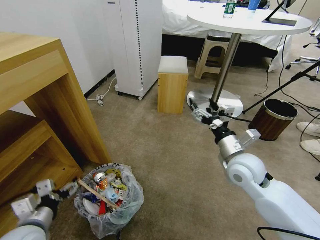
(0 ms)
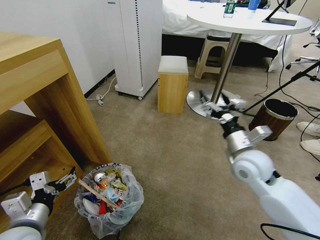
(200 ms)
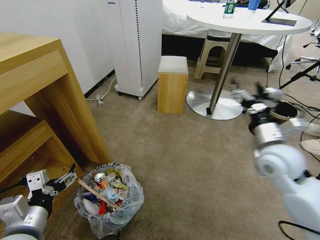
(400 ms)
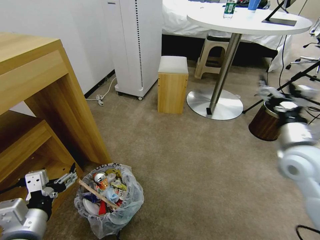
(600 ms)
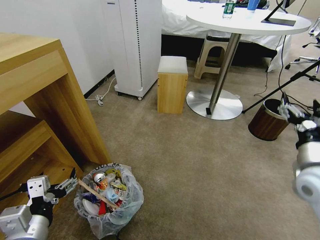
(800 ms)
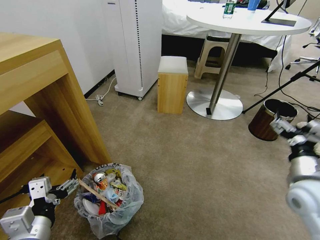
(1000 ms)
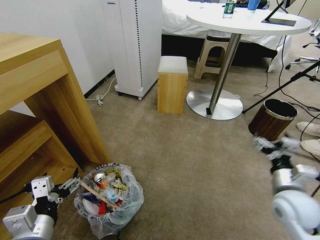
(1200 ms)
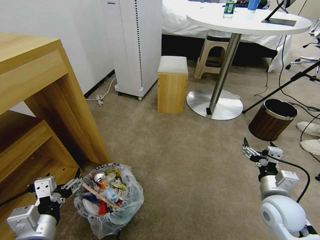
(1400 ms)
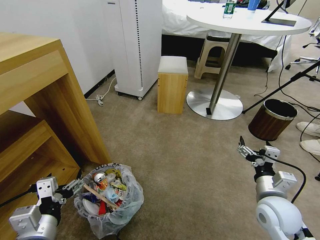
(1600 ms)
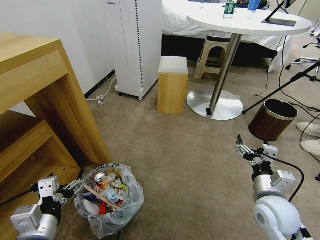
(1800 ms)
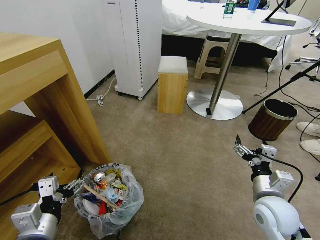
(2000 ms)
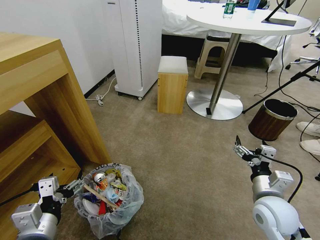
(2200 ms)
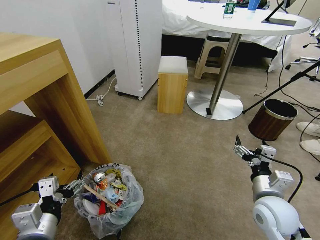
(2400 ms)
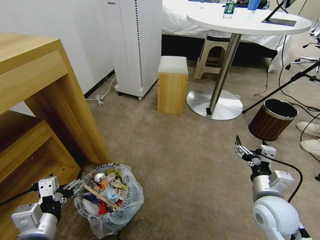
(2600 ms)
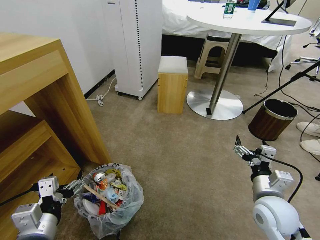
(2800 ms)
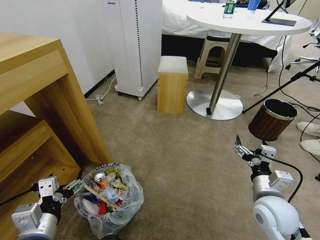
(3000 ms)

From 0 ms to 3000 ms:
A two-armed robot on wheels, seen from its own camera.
Task of the whole recording: Pick up the trash bin and place the garbage on the floor into it.
From 0 ms to 1600 ms: The left gripper is displaced to the right and upward by about 10 cm; the right gripper is displaced backward, to the right and downward by approximately 15 cm.
From 1600 ms to 3000 ms: The grippers make only small movements.
